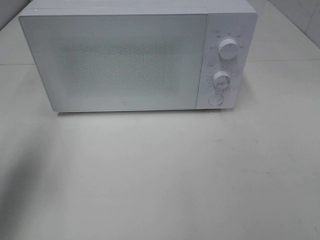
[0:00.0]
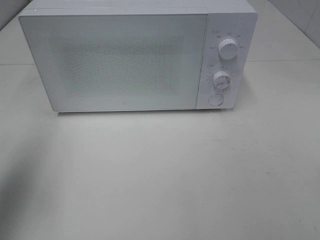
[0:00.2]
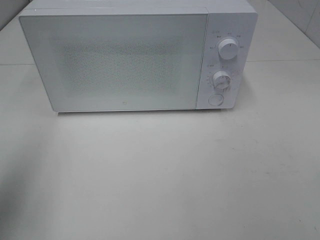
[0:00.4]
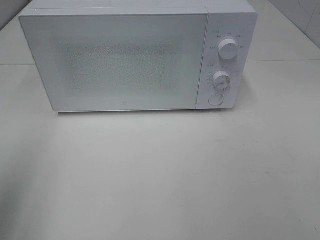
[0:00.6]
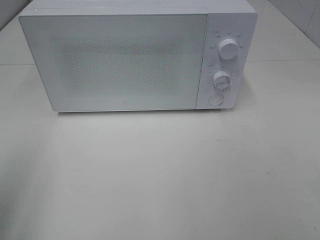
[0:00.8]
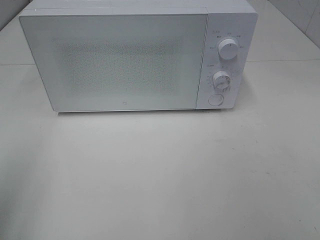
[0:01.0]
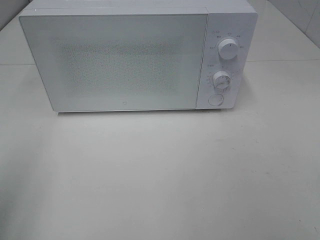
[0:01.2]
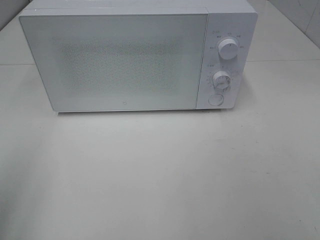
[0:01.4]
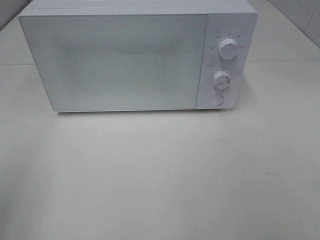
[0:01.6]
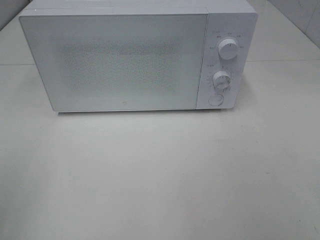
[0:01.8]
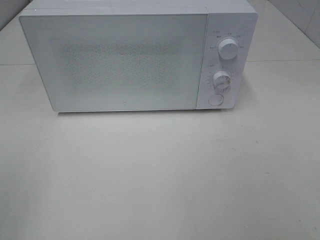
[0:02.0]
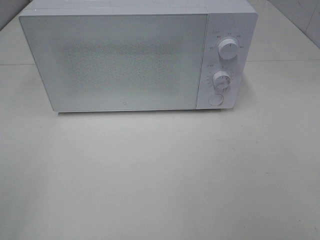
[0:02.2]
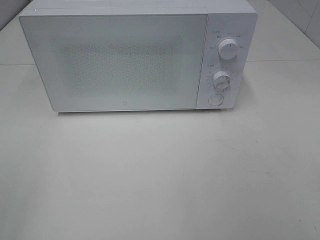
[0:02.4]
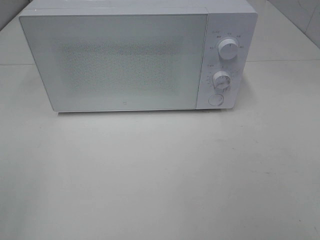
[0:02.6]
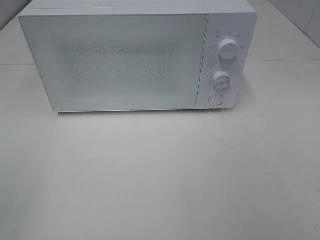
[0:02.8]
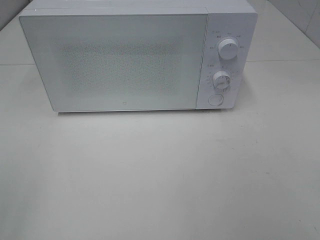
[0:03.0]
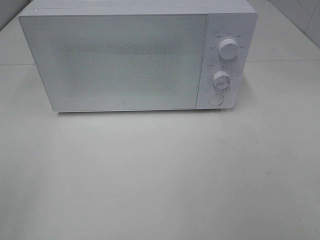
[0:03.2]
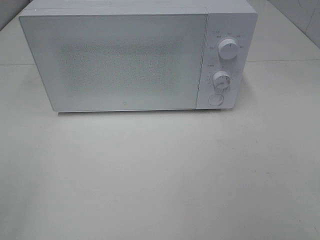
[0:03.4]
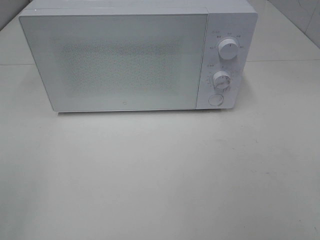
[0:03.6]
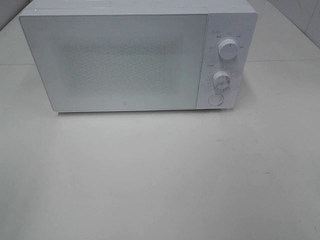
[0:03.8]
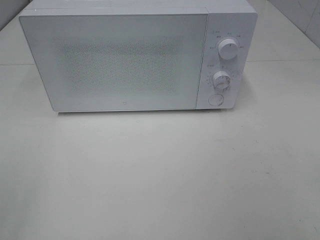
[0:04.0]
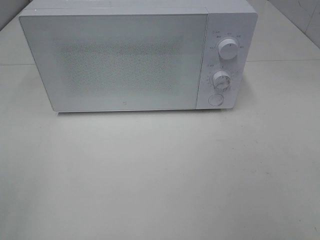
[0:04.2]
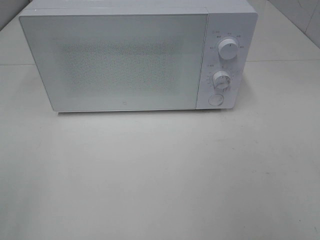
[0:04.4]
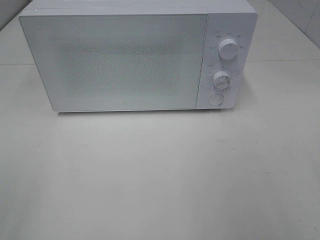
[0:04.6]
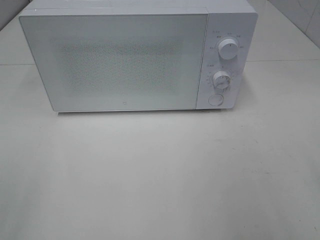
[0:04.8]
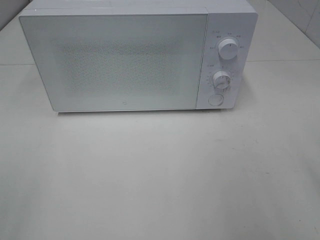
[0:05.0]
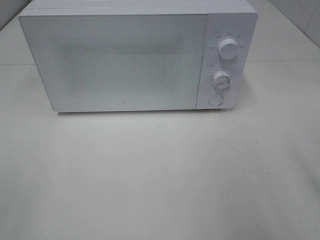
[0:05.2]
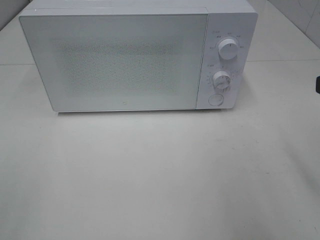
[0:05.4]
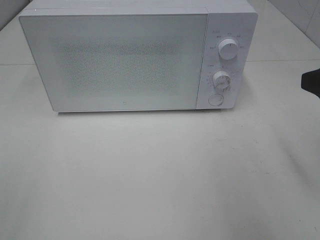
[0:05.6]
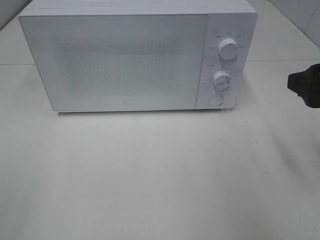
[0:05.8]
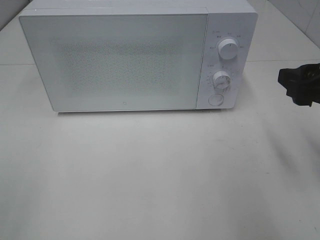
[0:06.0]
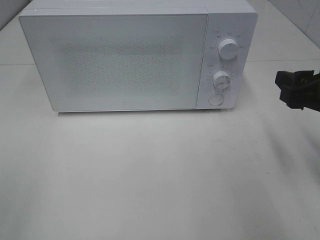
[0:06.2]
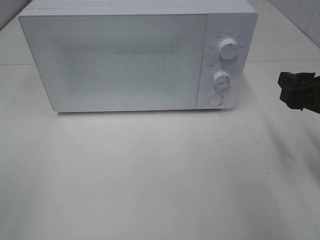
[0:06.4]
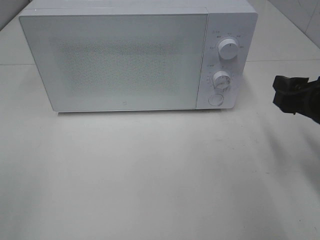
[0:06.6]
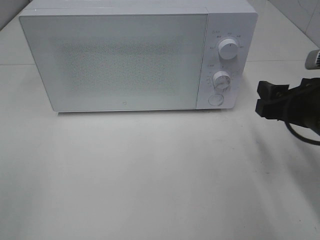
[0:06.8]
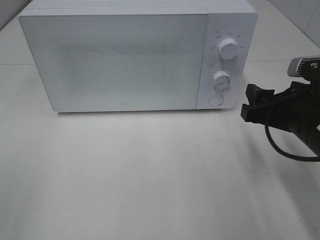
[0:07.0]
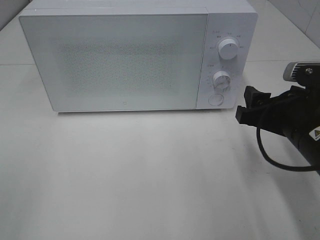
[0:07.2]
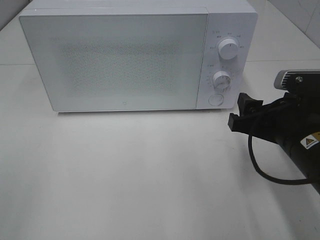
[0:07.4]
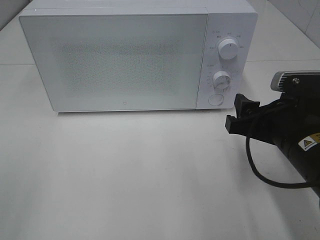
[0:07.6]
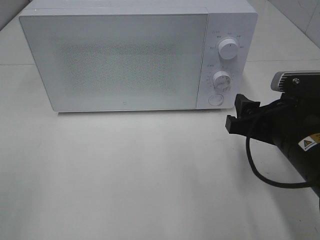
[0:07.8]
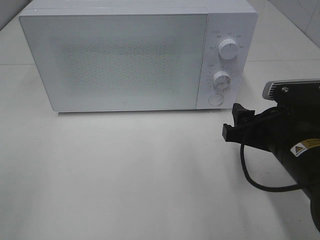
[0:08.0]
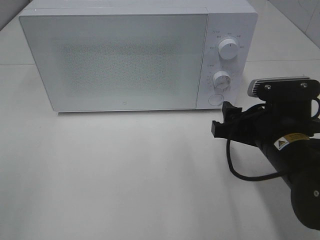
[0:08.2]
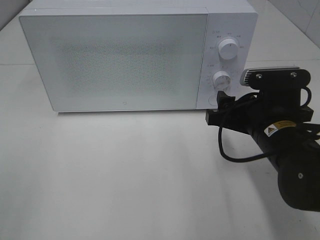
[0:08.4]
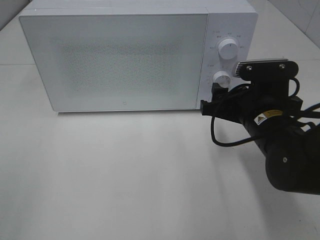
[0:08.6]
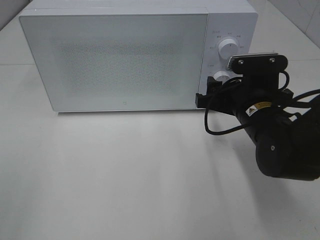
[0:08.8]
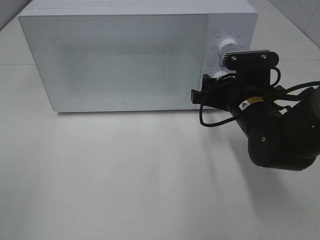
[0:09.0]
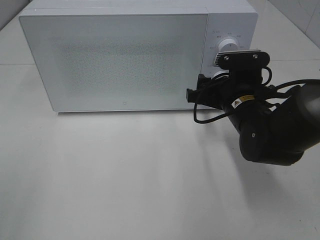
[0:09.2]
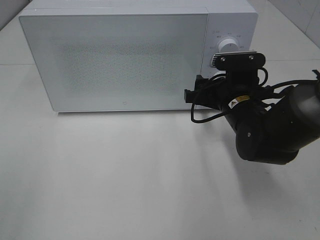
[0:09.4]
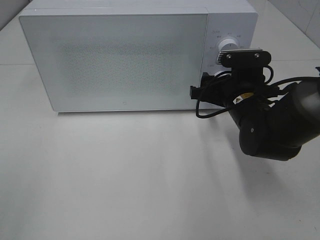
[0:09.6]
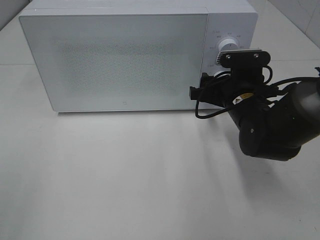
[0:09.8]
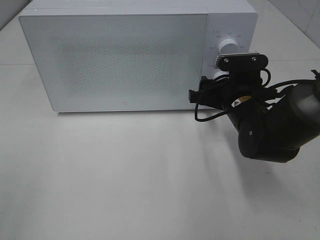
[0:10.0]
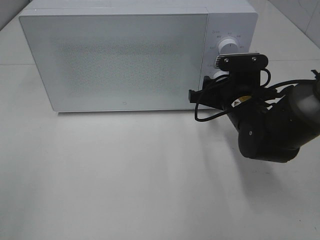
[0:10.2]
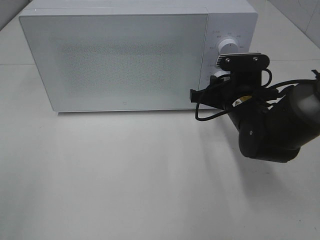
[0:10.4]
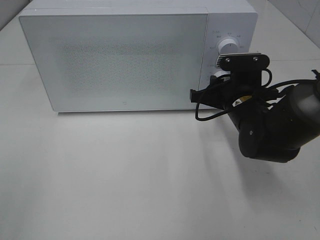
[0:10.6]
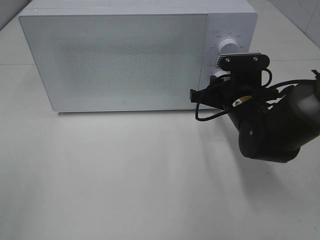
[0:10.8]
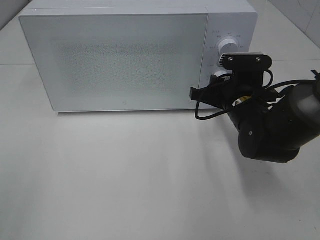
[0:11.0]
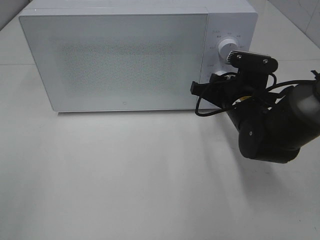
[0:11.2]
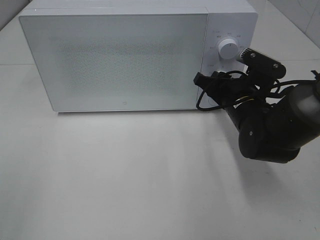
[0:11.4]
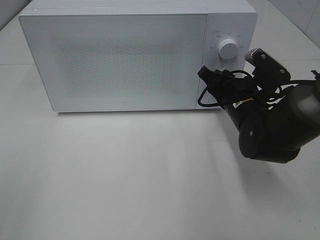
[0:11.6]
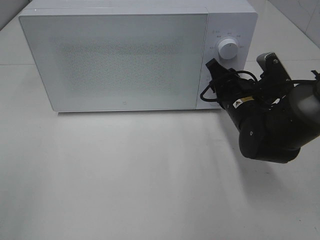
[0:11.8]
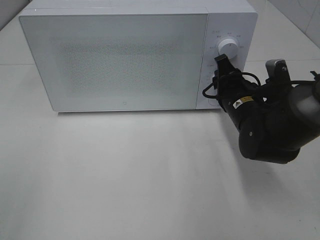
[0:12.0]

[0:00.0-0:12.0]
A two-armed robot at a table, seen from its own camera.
Task of the whole recording: Heat Sandwich.
0:00.0 to 0:01.6: The left gripper shifts some 15 cm backward.
0:04.4 to 0:06.0: The right gripper heads forward and downward, covering approximately 15 cm.
0:06.0 to 0:07.6: The right gripper heads to the left and downward, covering approximately 10 cm.
0:07.6 to 0:09.0: The right gripper shifts roughly 10 cm forward.
0:09.0 to 0:10.4: The right gripper closes.

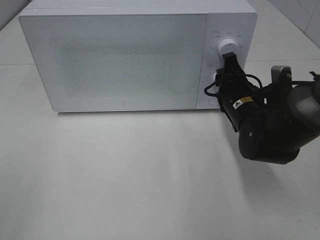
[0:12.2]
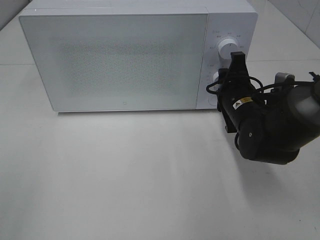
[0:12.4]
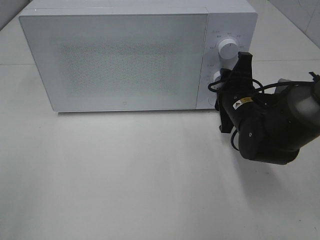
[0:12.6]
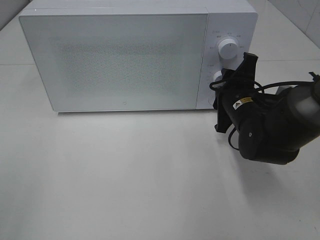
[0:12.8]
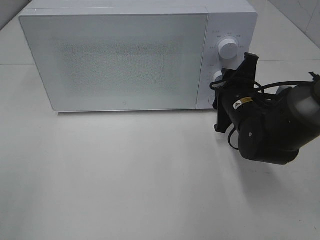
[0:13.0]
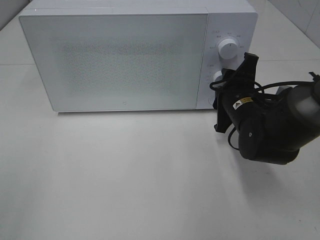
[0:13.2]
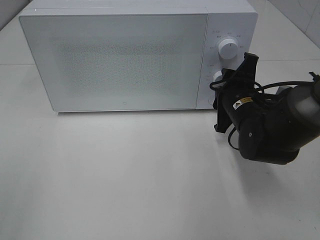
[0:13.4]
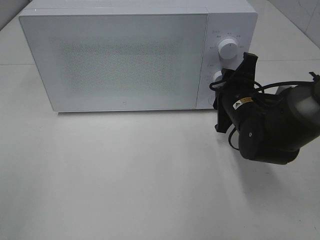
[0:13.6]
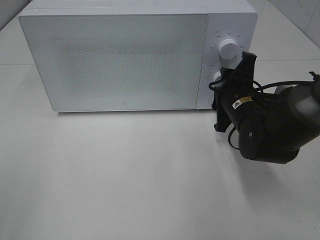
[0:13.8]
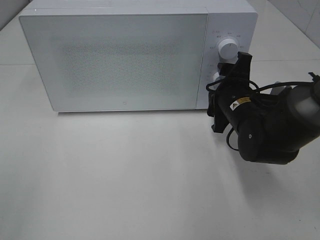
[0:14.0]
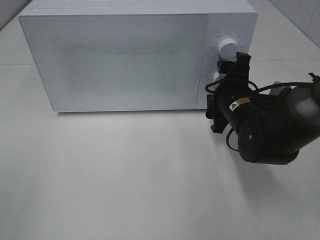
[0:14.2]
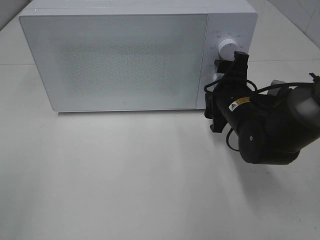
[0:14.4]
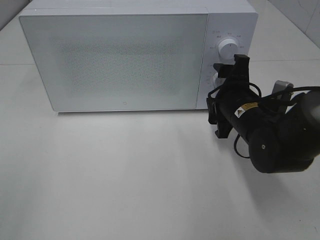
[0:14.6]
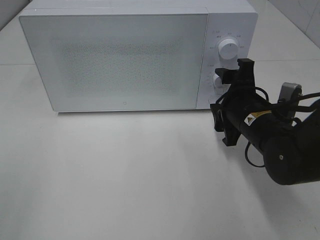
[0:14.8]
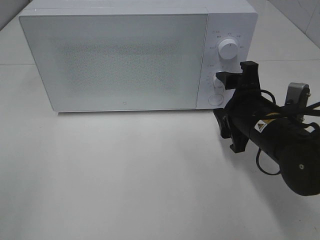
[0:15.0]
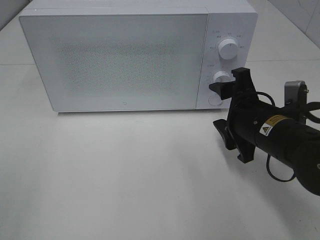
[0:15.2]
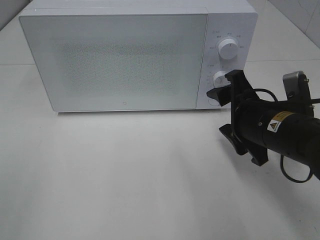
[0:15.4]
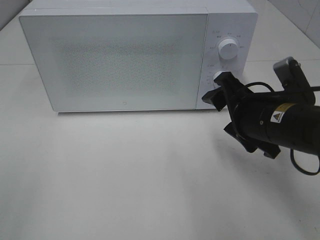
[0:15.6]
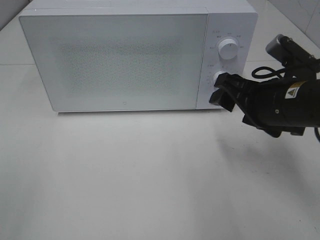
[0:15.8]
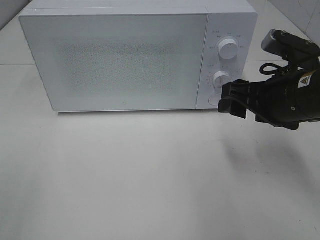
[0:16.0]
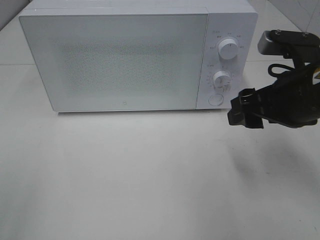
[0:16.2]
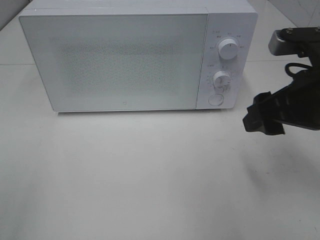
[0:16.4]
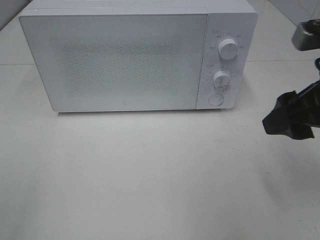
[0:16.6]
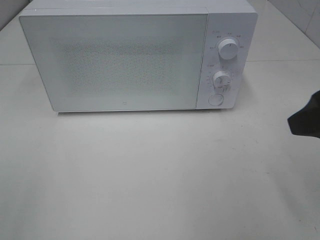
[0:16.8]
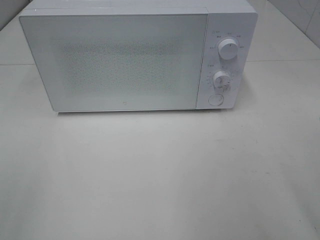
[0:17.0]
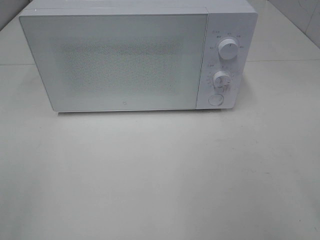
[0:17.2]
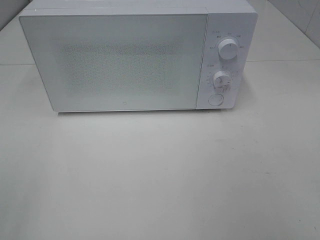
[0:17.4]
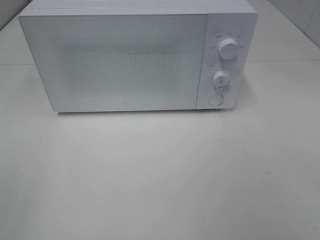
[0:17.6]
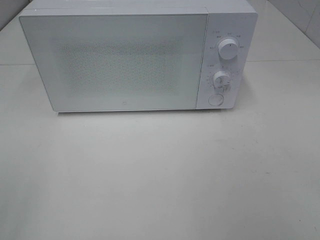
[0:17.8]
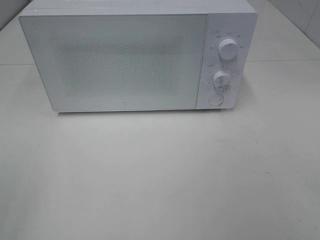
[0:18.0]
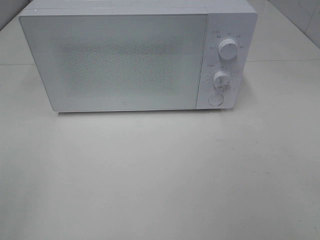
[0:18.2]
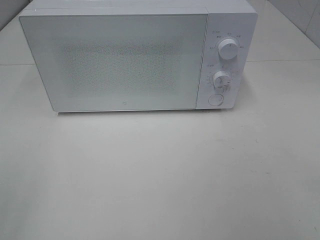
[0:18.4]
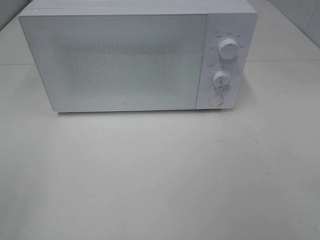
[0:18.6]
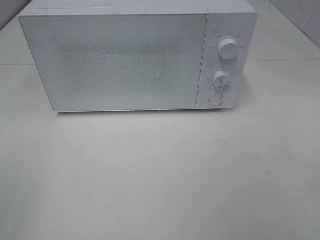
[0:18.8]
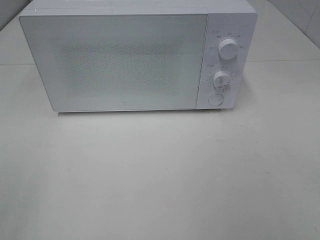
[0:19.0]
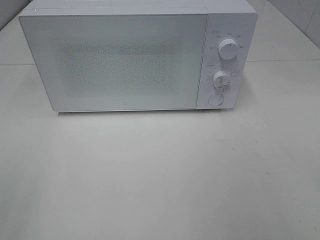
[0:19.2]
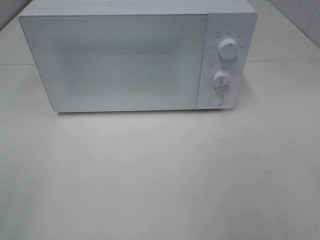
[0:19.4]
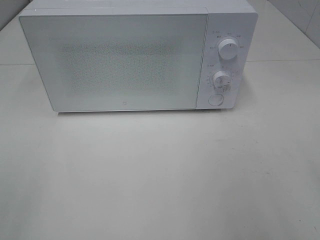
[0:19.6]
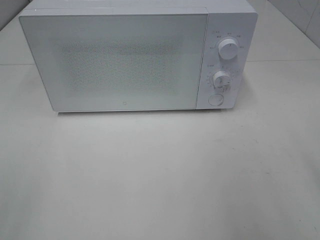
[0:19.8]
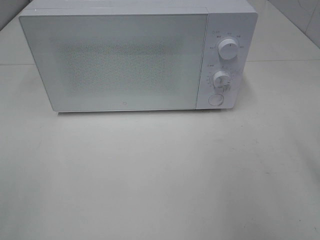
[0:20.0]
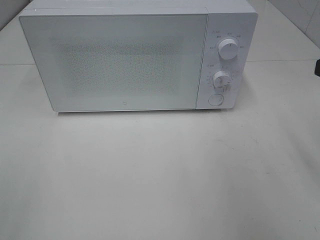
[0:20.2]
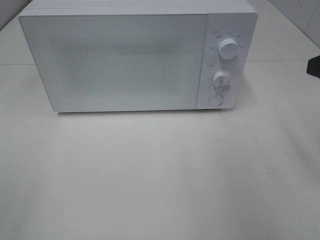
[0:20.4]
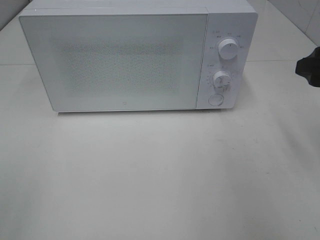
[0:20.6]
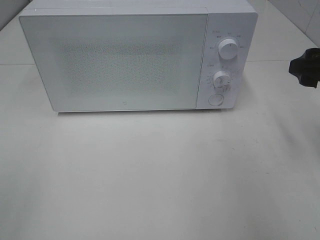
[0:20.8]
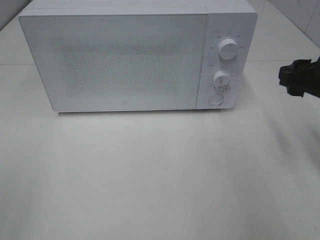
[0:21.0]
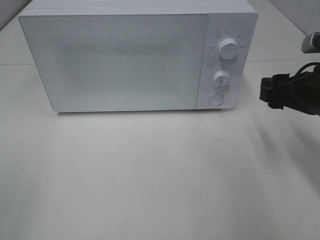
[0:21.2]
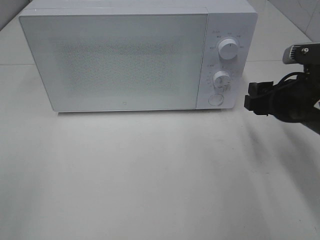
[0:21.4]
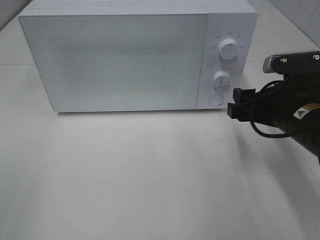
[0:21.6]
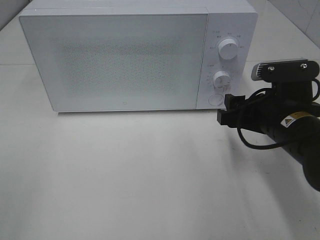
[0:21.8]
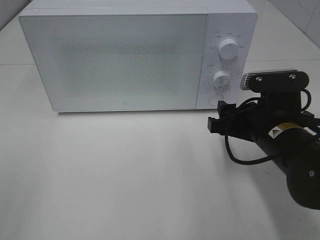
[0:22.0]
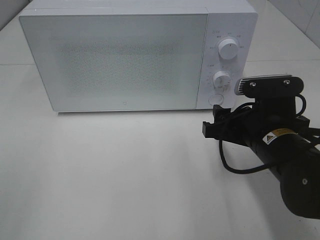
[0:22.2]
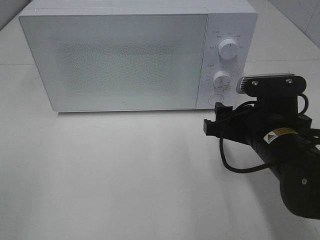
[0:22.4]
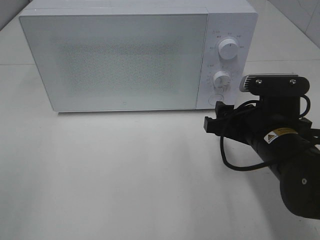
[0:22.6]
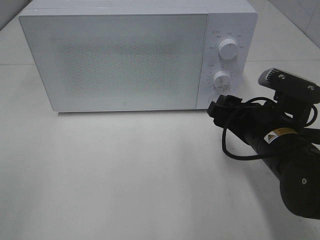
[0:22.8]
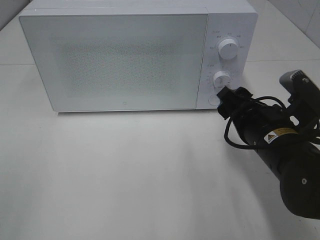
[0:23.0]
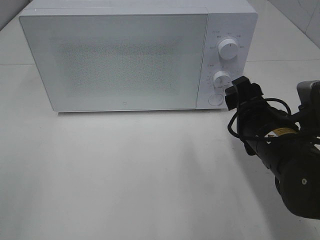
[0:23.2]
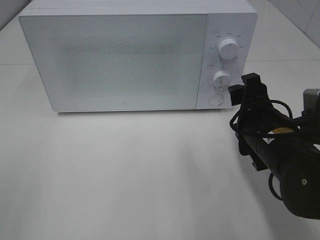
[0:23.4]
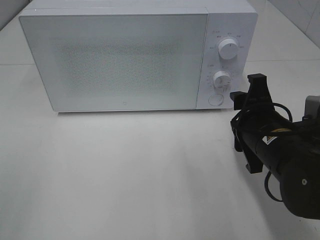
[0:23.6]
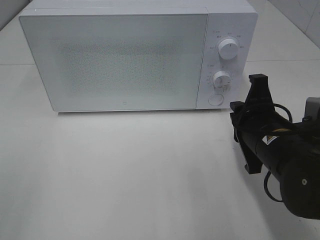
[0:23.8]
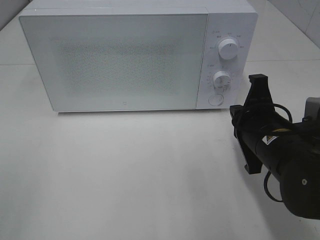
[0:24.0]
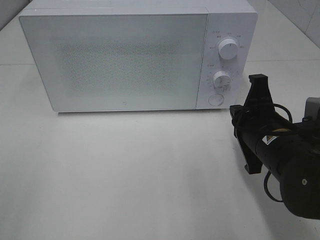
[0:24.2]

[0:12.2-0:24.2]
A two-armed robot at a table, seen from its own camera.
Task of the whole recording: Heat Sandwich.
Step, 0:12.2 to 0:14.8: Right hand: twist timer button.
0:13.8 to 0:15.2: The right gripper goes some 5 cm backward.
0:15.2 to 0:16.6: The right gripper goes about 15 cm upward, backward and to the right.
0:16.6 to 0:18.2: The right gripper travels backward by roughly 20 cm.
0:19.8 to 0:21.2: The right gripper shifts approximately 15 cm forward and downward.
0:21.2 to 0:22.6: The right gripper heads to the left, covering about 10 cm.
0:22.6 to 0:24.2: The right gripper closes.
